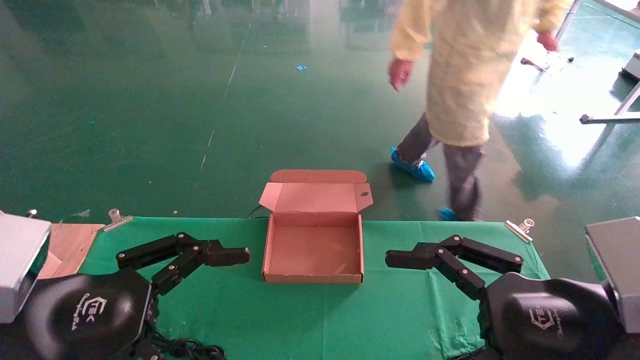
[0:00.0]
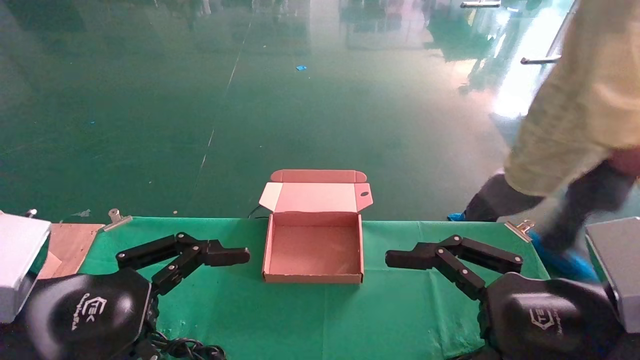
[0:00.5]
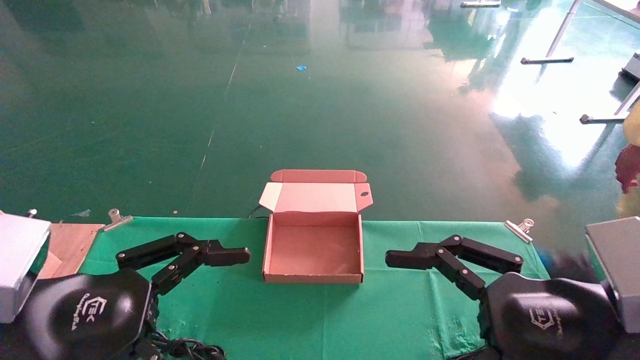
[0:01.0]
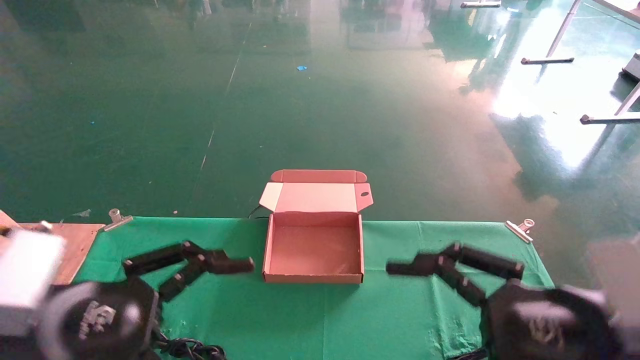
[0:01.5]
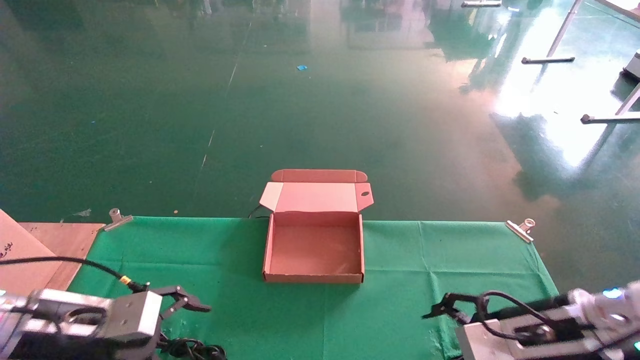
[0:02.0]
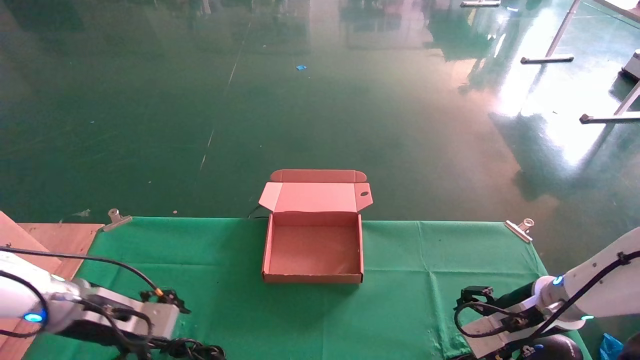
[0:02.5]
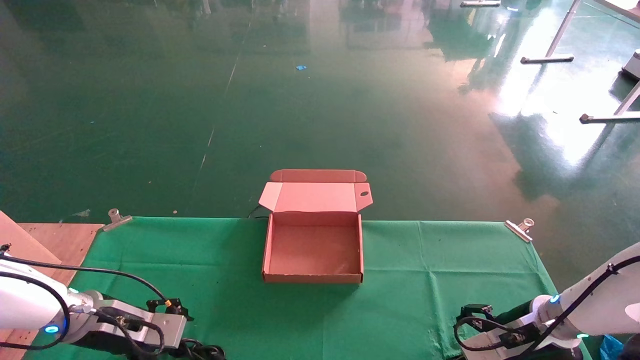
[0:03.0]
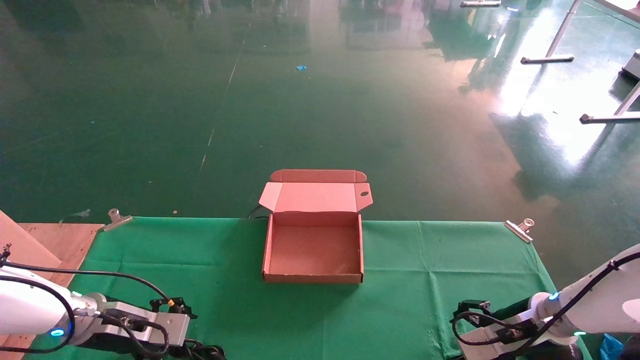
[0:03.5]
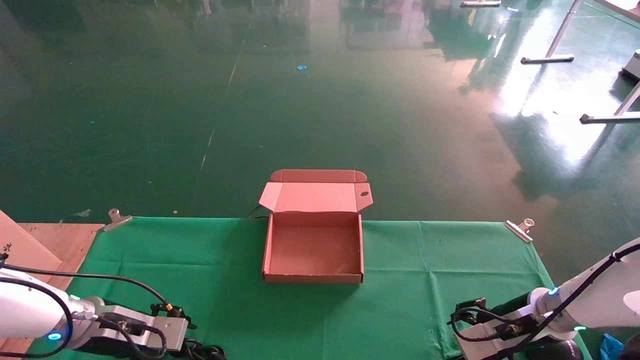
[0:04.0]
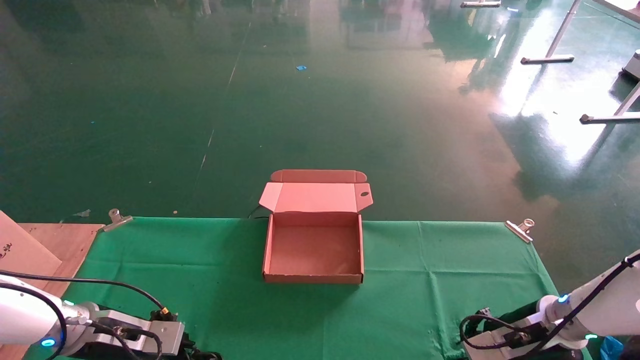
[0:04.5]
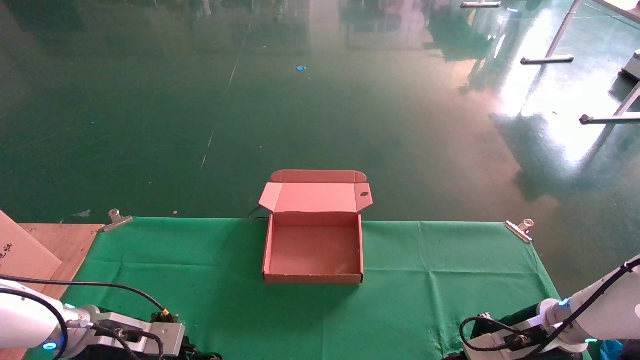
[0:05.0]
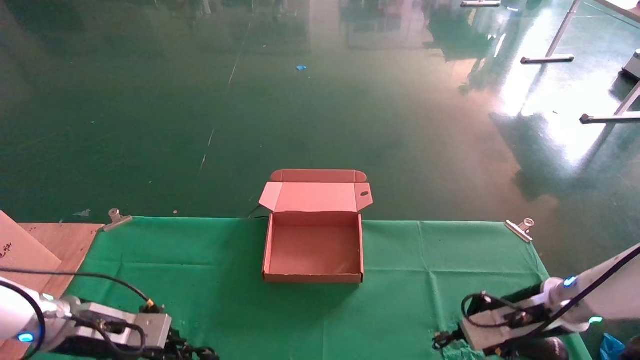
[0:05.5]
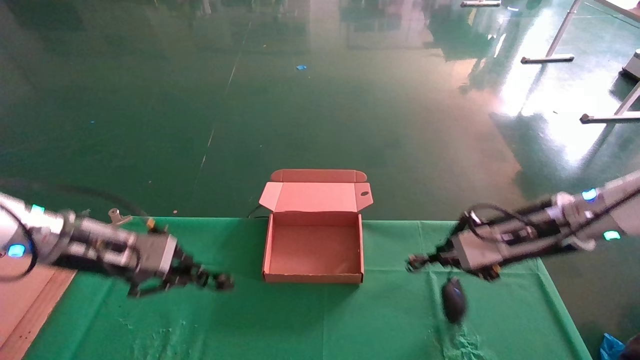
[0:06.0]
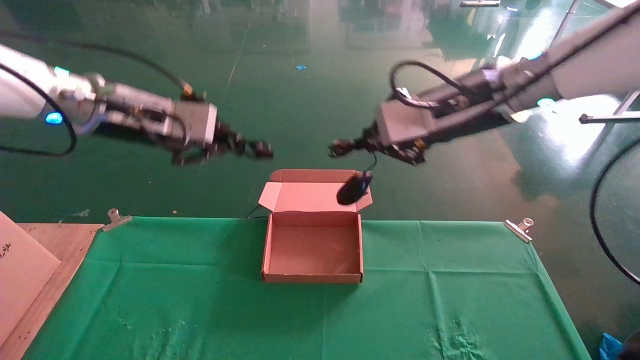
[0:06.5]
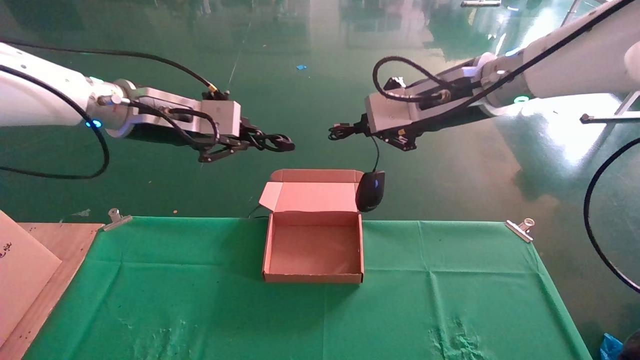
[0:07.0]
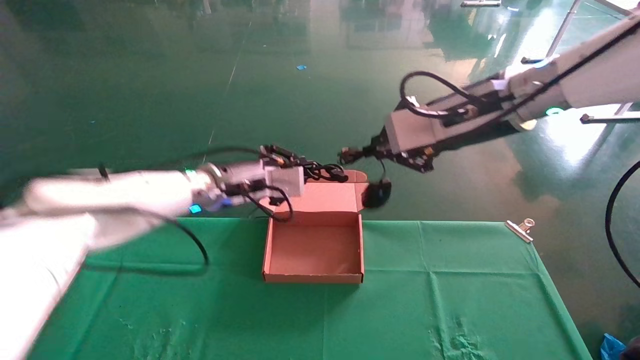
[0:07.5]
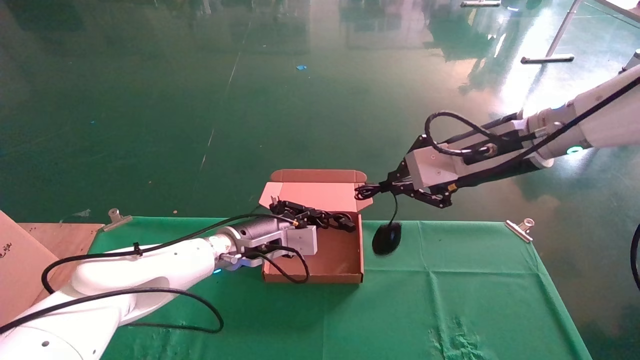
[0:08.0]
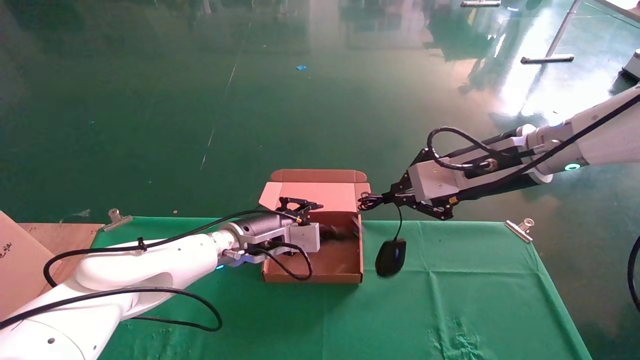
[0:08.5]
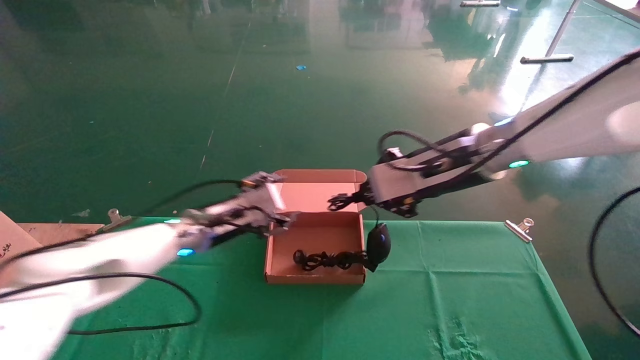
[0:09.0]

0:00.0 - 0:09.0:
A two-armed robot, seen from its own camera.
Step, 0:02.0 - 0:05.5: Grab and lift both the mouse and power cord from the accessory packaging area at the same time.
0:00.0 - 0:02.0: The left gripper travels forward, downward and to the left by some 15 cm, while the right gripper moves forward and downward, about 15 cm.
0:02.0 - 0:04.5: The right gripper is displaced forward and downward by approximately 10 cm, and closes up, while the left gripper heads downward and forward, covering approximately 10 cm, and closes up.
0:04.5 - 0:07.0: The left gripper moves upward, some 30 cm, while the right gripper moves upward and to the left, approximately 35 cm, and closes up.
0:07.0 - 0:09.0: The right gripper moves downward, about 10 cm. The left gripper goes some 20 cm downward, and opens its fingers.

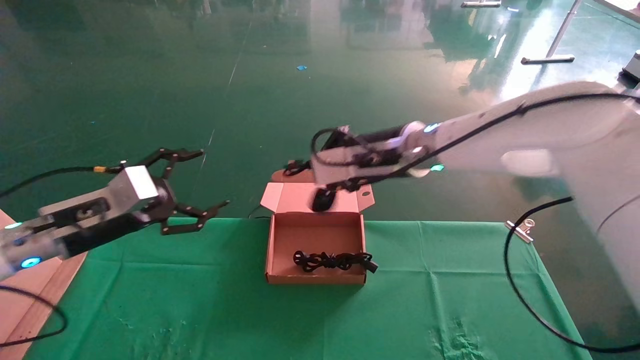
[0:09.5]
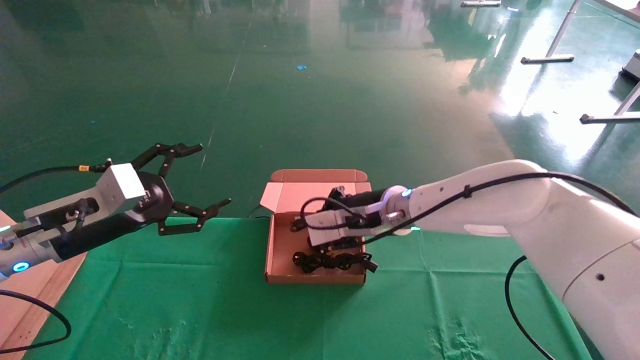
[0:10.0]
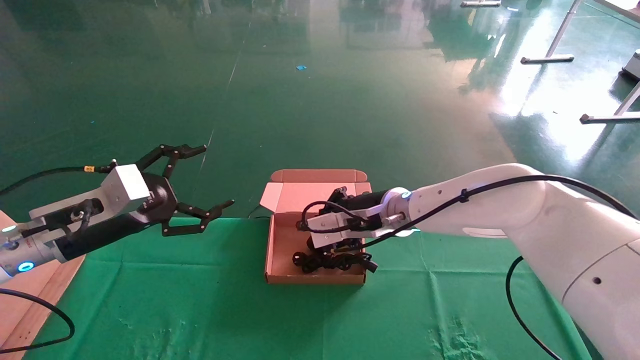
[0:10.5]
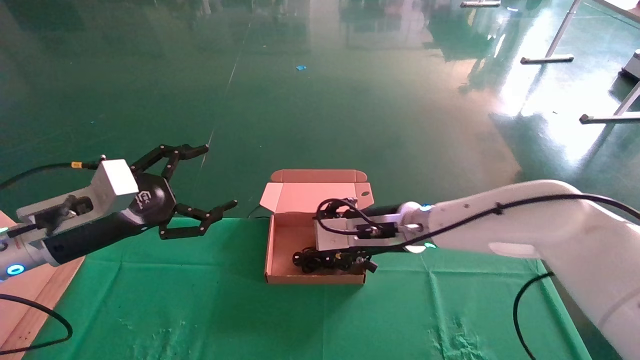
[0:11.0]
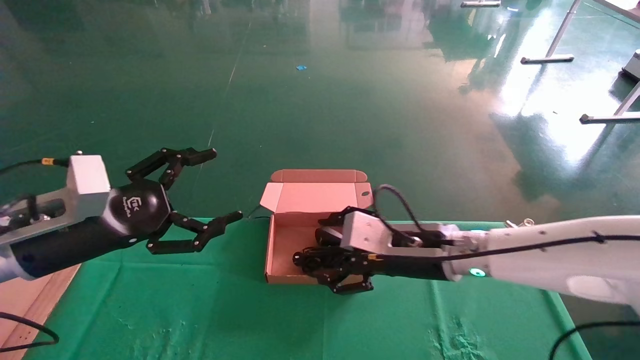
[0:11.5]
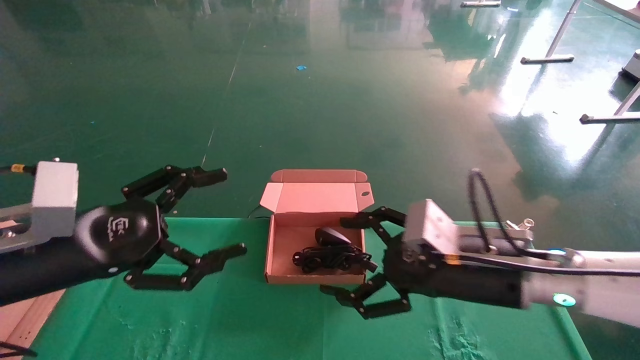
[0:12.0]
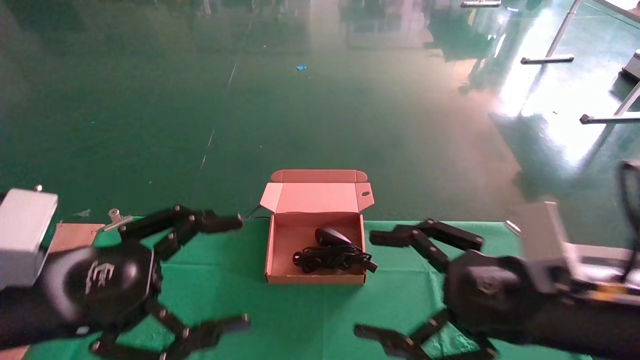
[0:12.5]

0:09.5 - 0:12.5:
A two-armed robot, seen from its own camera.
0:09.5 - 0:11.0: The right gripper travels downward by roughly 10 cm.
0:11.0 - 0:12.5: The left gripper goes about 15 cm backward; the right gripper is displaced backward and to the right by about 25 cm, and opens up.

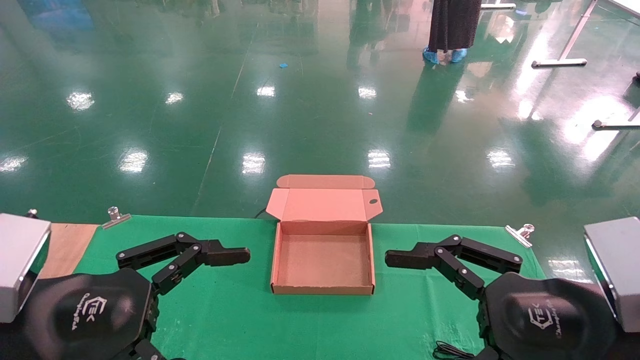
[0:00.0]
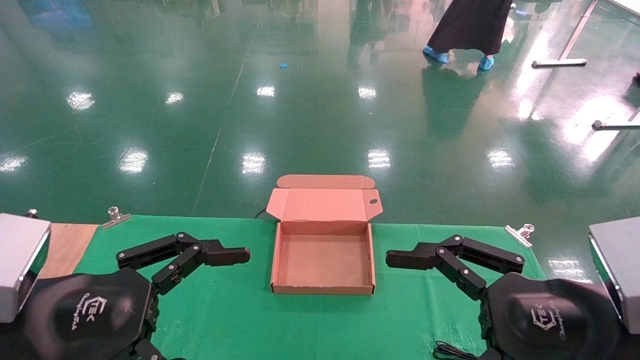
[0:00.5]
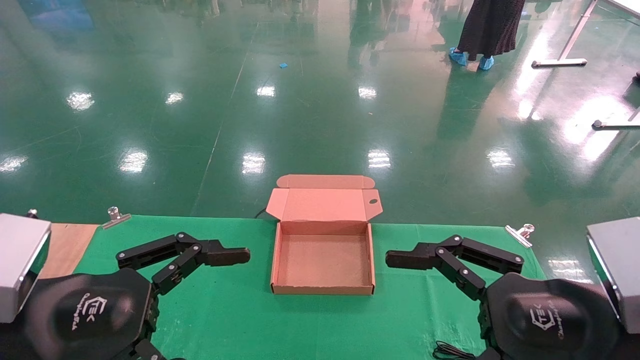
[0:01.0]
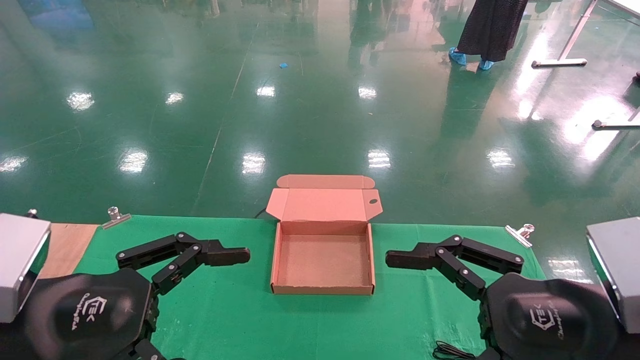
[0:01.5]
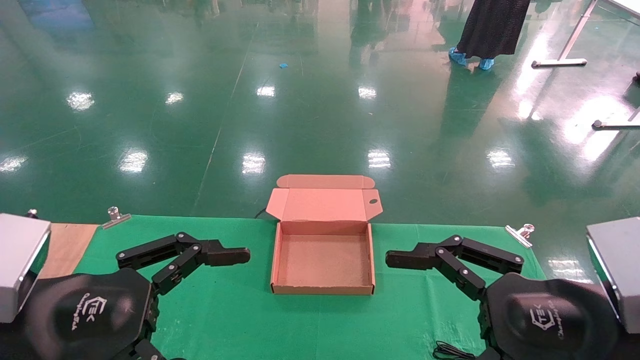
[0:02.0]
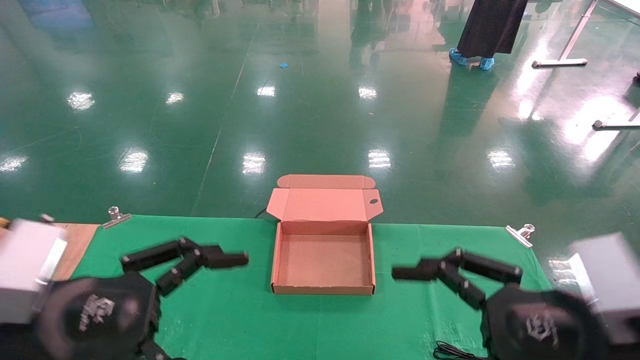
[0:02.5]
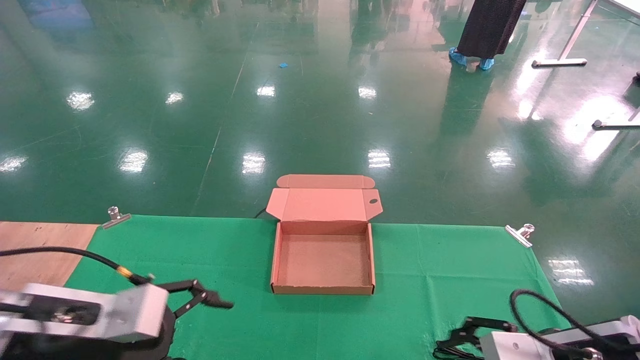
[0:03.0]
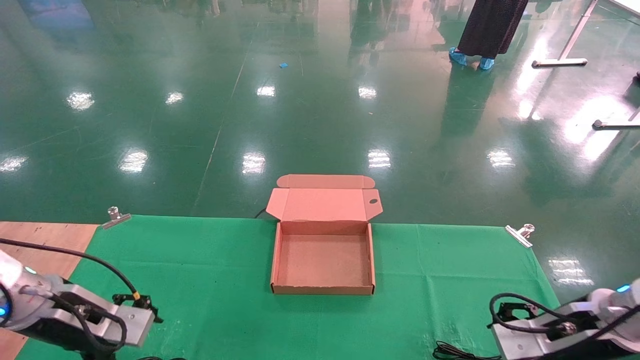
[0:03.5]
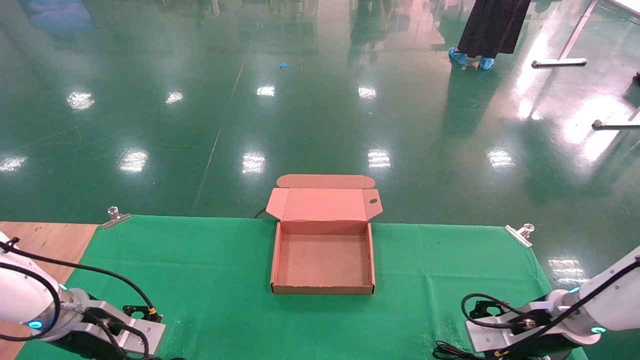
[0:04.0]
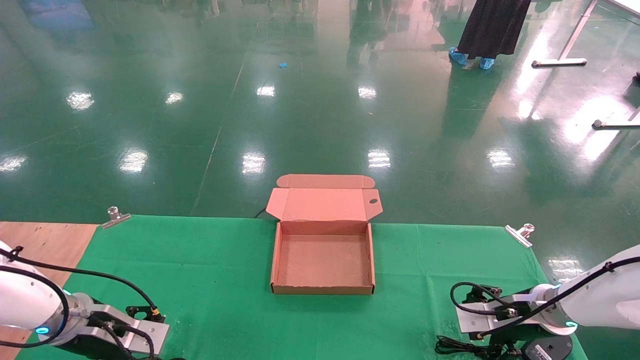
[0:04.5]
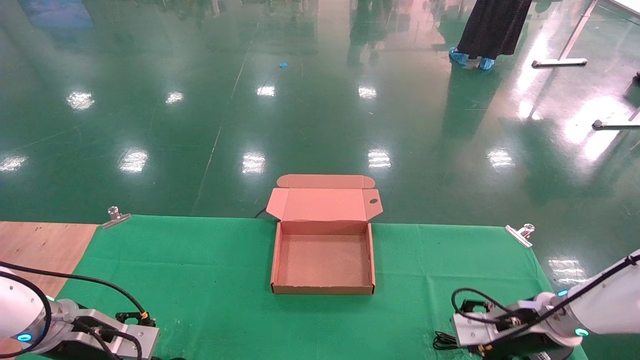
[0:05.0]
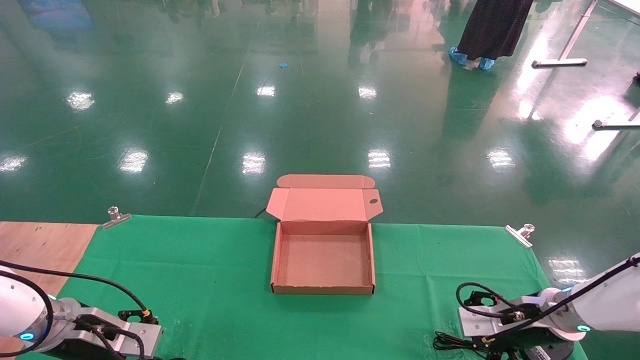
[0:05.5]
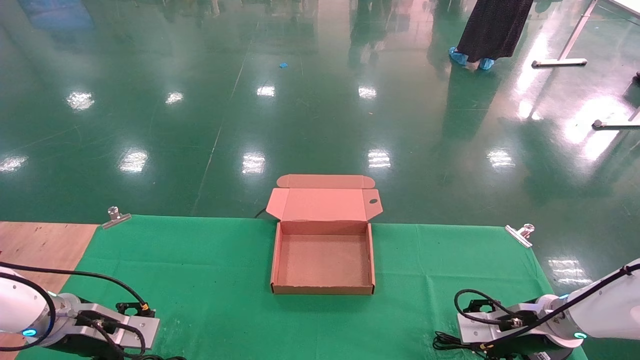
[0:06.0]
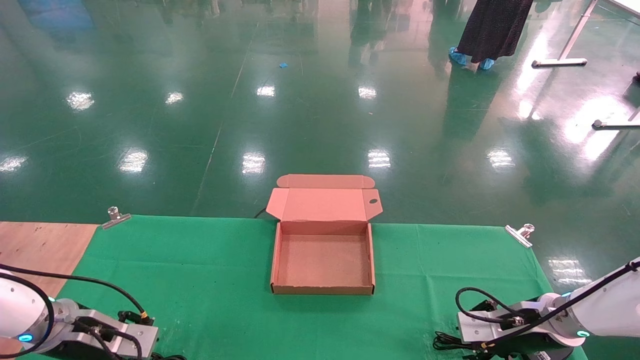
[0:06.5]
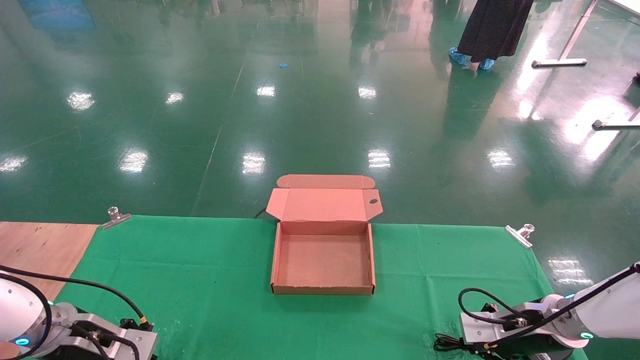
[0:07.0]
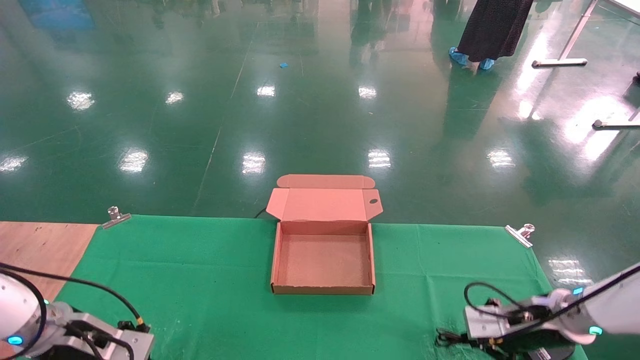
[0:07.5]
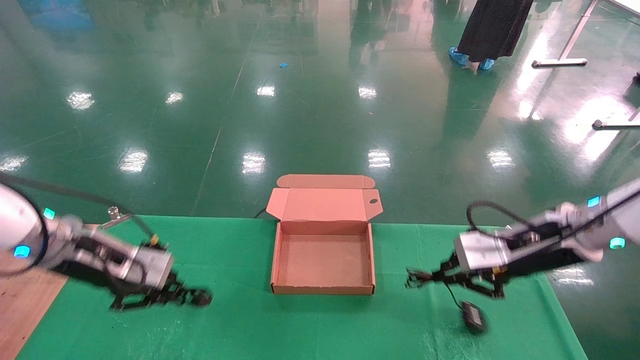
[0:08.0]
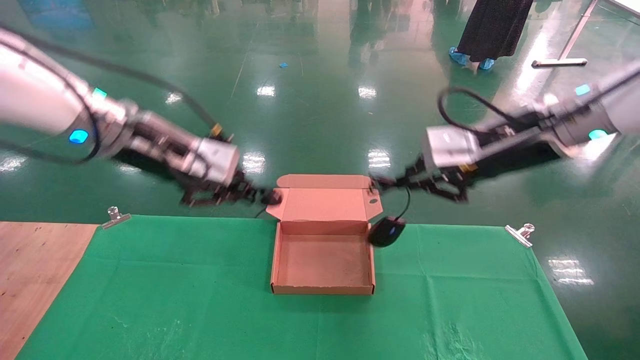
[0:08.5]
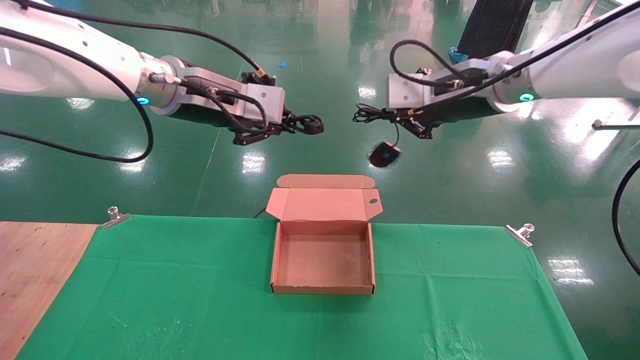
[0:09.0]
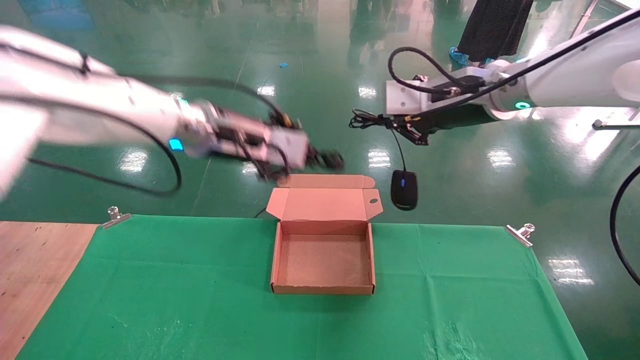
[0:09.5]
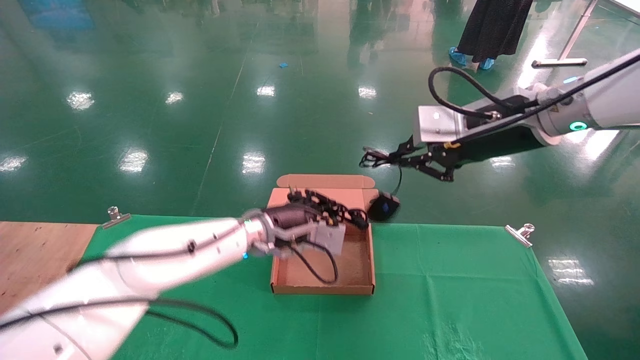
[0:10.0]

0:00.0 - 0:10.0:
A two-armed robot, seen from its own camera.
Step, 0:03.0 - 0:08.5: Grab and lift both the mouse and power cord from the accessory packaging area at the same time.
0:00.0 - 0:02.0: Both grippers stay put.
0:02.0 - 0:04.0: The right gripper moves forward and downward, about 25 cm. Meanwhile the left gripper is displaced forward, downward and to the left by about 25 cm.
0:04.0 - 0:06.0: There are only small adjustments of the grippers.
0:06.0 - 0:08.0: The two grippers go about 15 cm upward. The left gripper closes its fingers; the right gripper closes up.
0:08.0 - 0:10.0: The left gripper moves to the right, some 25 cm; the right gripper shifts some 15 cm upward and to the left.
